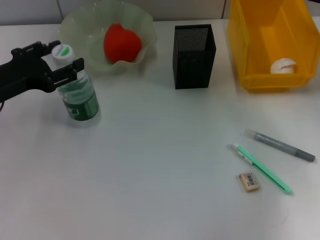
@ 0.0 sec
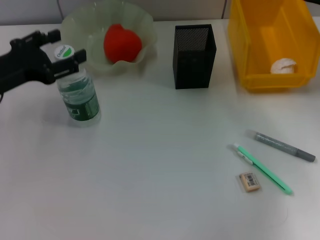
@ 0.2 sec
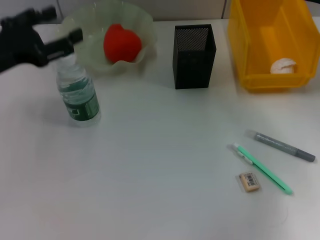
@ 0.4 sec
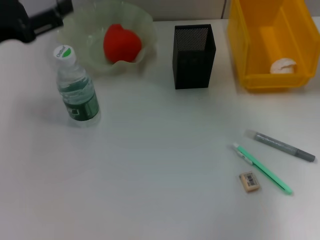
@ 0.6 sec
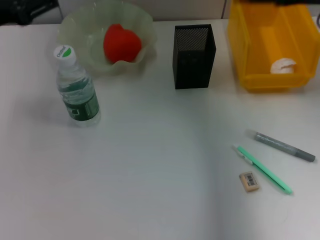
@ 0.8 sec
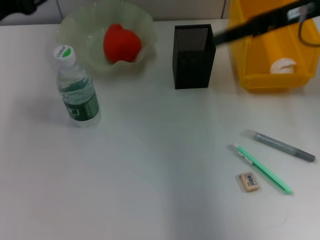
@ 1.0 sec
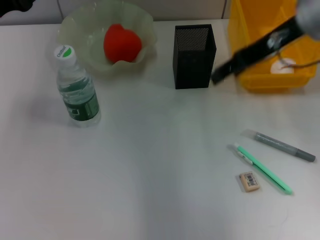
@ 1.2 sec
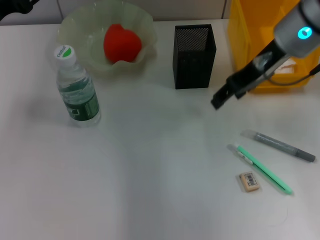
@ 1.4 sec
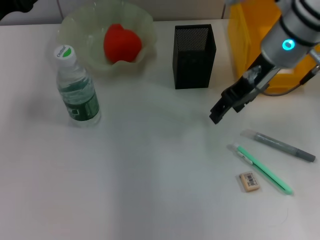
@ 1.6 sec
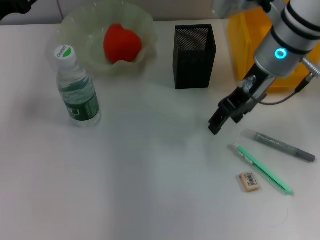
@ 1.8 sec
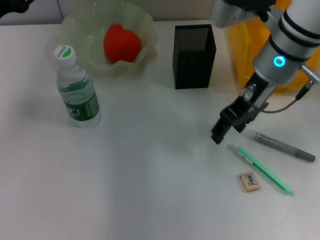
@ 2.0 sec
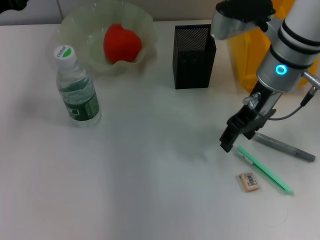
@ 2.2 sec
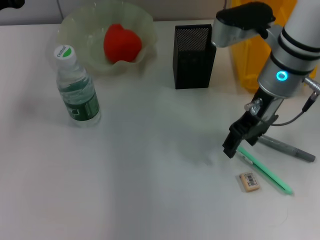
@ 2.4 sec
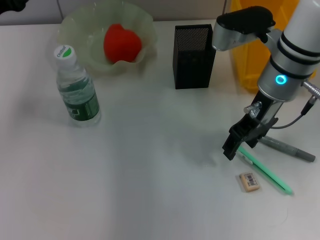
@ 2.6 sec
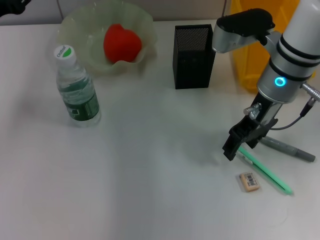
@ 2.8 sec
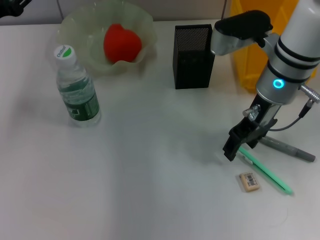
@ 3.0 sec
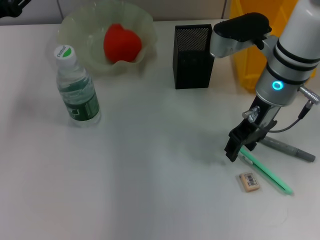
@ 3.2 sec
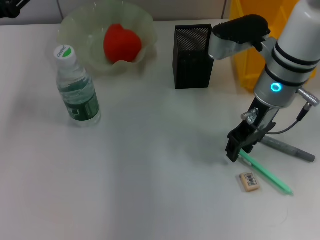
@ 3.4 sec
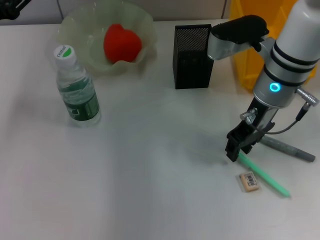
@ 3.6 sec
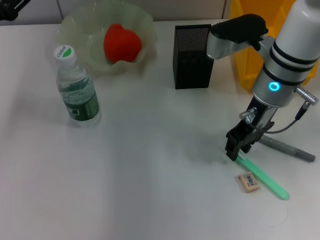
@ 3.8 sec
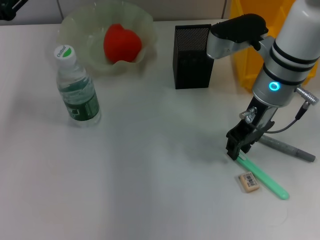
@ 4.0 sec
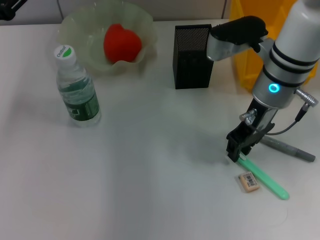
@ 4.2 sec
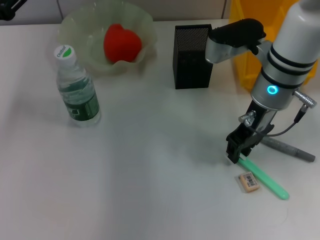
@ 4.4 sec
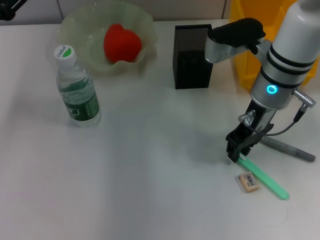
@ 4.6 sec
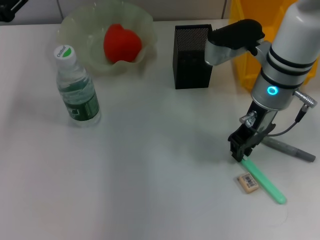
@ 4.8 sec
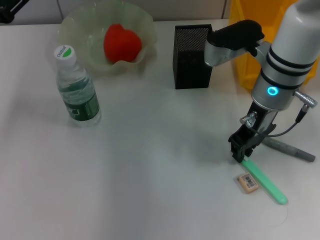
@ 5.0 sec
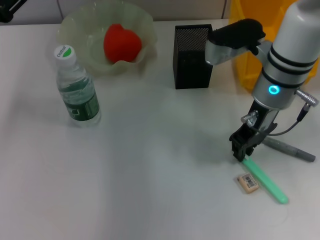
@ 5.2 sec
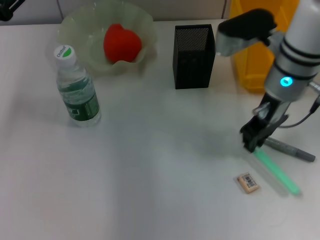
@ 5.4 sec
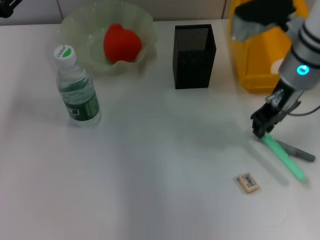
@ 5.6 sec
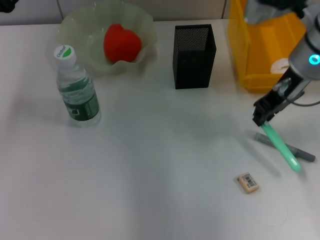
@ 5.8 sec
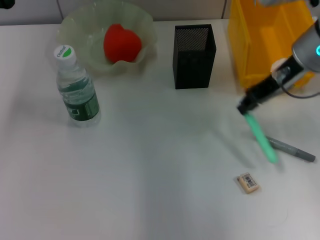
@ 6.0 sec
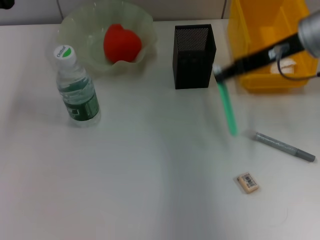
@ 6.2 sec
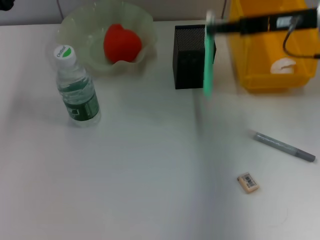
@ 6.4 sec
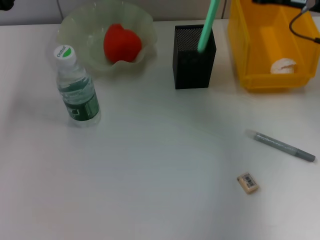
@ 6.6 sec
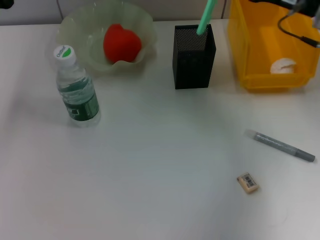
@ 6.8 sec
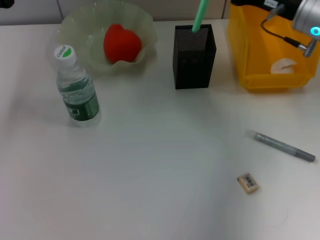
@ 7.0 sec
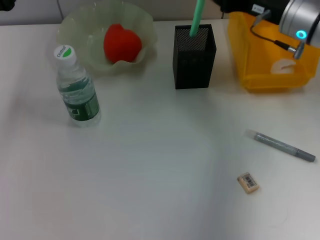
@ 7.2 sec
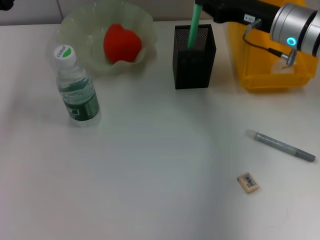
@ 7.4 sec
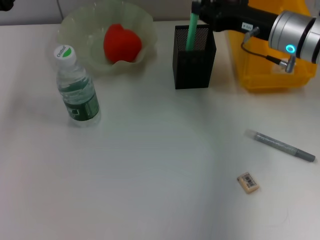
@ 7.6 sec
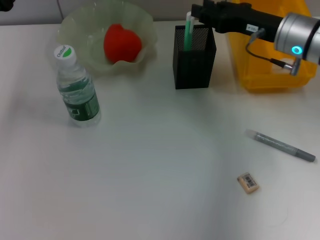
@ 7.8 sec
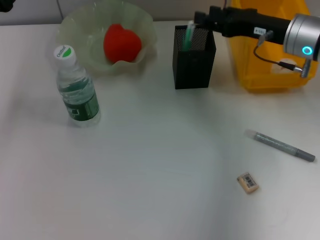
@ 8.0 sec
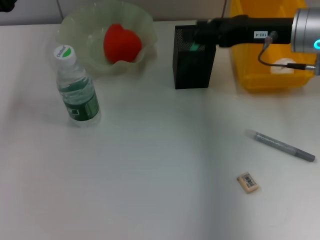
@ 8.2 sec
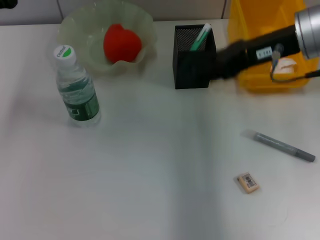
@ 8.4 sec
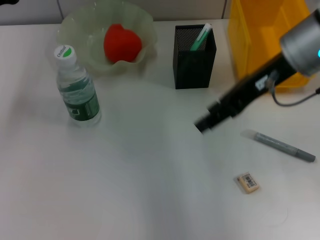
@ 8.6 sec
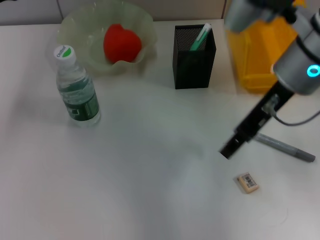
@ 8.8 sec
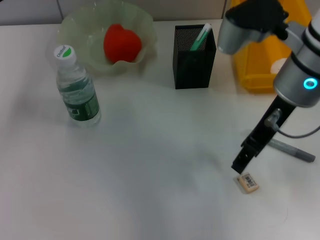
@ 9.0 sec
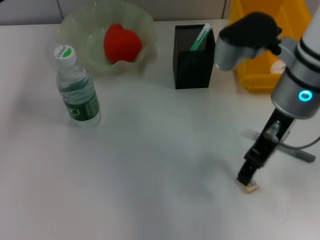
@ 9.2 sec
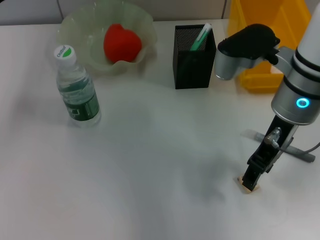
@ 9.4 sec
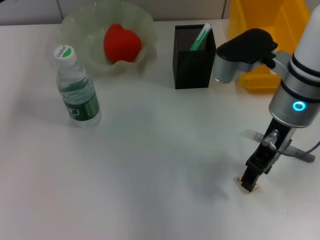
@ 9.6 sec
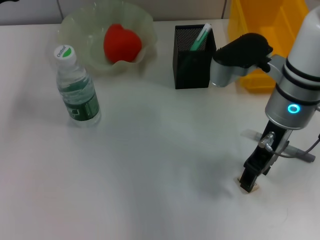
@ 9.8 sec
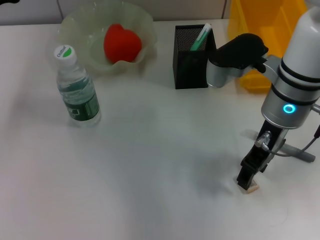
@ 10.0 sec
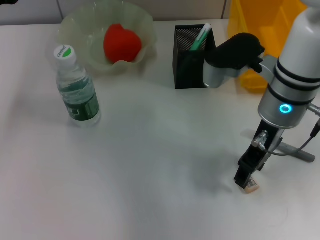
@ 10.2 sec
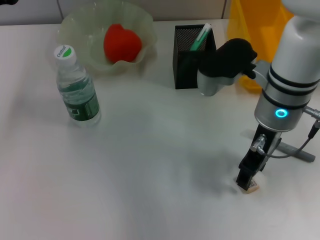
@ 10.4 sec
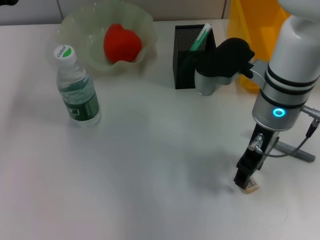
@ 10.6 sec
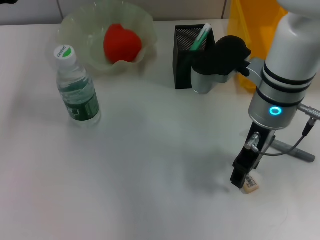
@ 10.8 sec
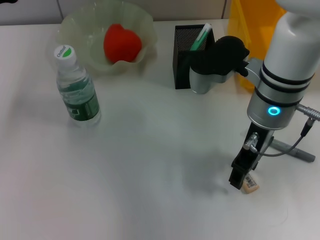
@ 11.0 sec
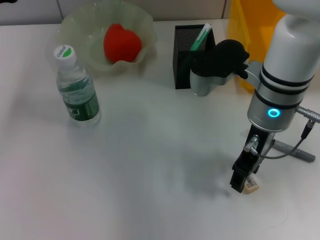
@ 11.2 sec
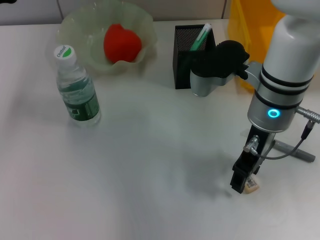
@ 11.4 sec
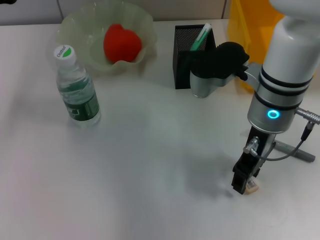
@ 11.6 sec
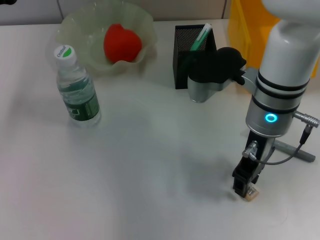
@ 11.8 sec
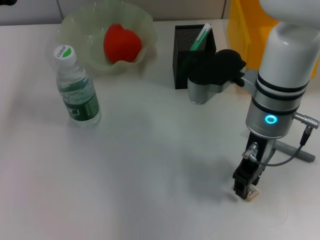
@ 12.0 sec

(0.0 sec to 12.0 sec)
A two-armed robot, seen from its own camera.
Step, 0.2 sec - 5.0 sec: Grab the blue utility knife with the right hand.
Step, 5.2 sec - 7.8 sec: Place the blue utility knife into the pen holder with the right hand.
0.0 sec - 1.6 sec: The left gripper opens up, while the right gripper is displaced to the left by some 15 cm.
1.6 sec - 3.0 sec: The grippers make only small movements.
3.0 sec - 4.4 sec: The right gripper closes.
4.4 sec - 6.0 sec: The right gripper goes approximately 10 cm to the right and upward.
6.0 sec - 7.6 sec: The right gripper shifts approximately 5 cm downward.
7.6 sec - 9.0 sec: The right gripper is displaced backward, upward and to the left by some 10 cm, and opens.
9.0 sec - 10.4 sec: The right gripper travels downward by approximately 5 cm.
10.4 sec - 12.0 sec: Both grippers stay about where they are.

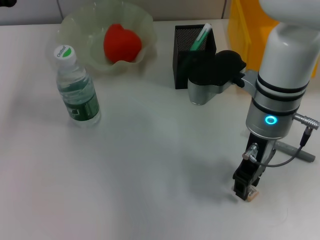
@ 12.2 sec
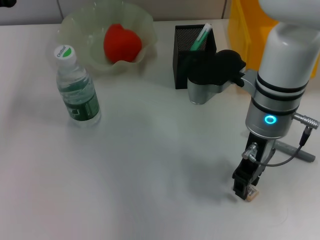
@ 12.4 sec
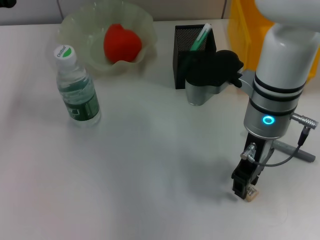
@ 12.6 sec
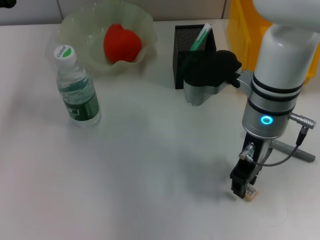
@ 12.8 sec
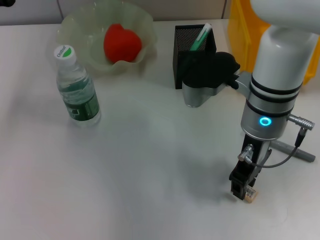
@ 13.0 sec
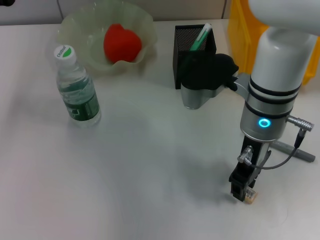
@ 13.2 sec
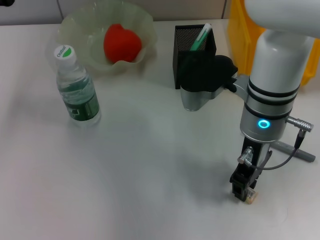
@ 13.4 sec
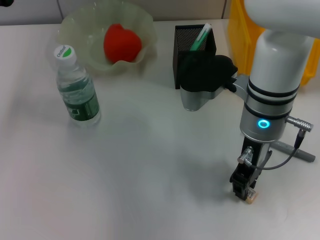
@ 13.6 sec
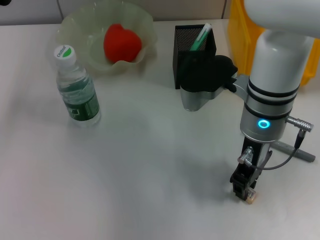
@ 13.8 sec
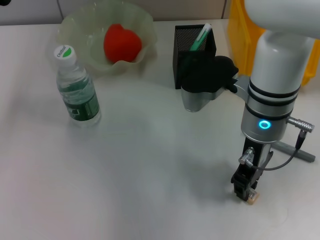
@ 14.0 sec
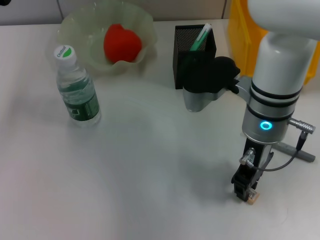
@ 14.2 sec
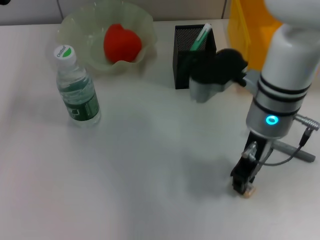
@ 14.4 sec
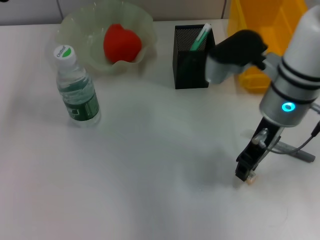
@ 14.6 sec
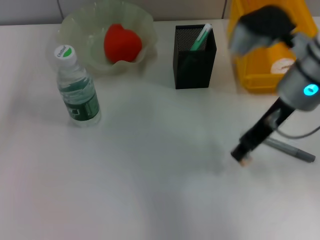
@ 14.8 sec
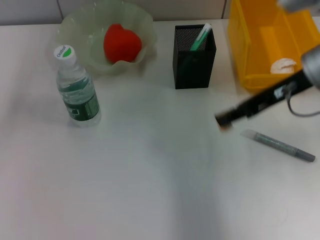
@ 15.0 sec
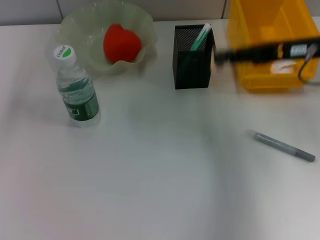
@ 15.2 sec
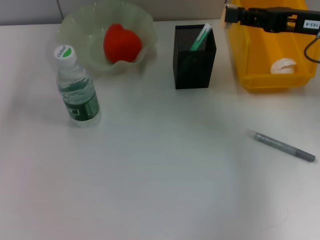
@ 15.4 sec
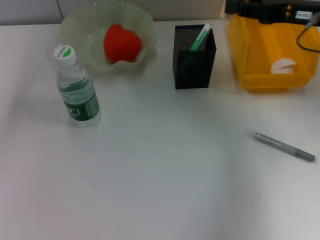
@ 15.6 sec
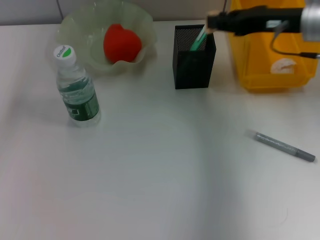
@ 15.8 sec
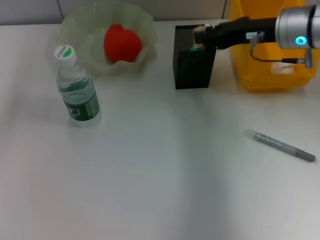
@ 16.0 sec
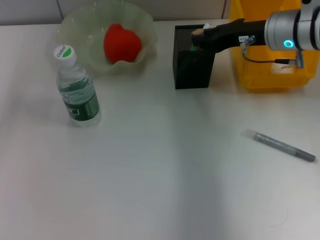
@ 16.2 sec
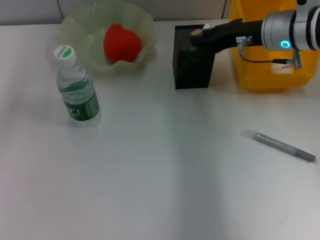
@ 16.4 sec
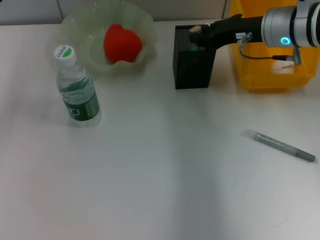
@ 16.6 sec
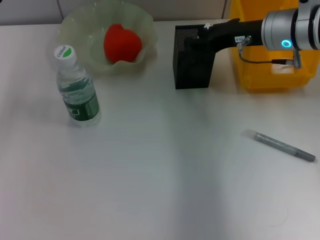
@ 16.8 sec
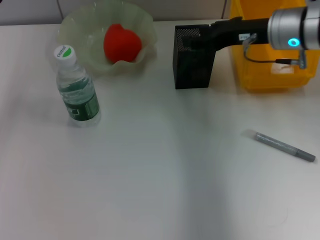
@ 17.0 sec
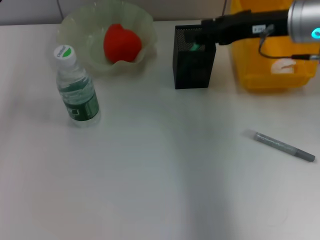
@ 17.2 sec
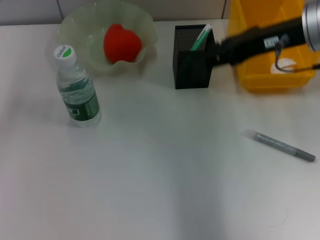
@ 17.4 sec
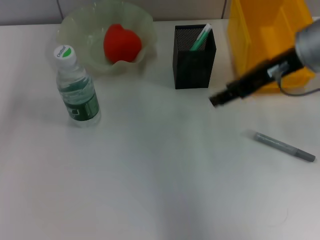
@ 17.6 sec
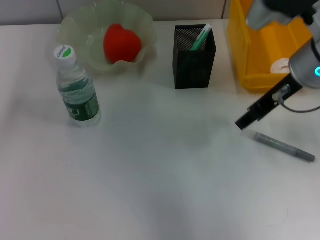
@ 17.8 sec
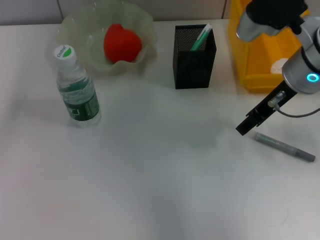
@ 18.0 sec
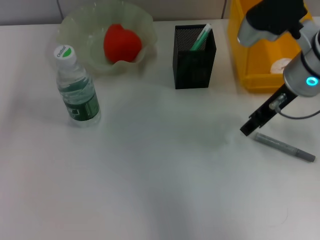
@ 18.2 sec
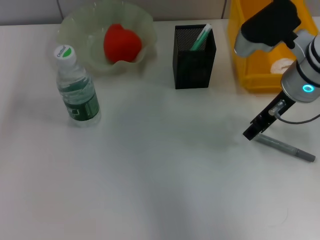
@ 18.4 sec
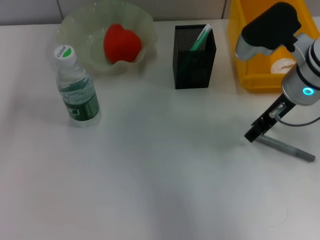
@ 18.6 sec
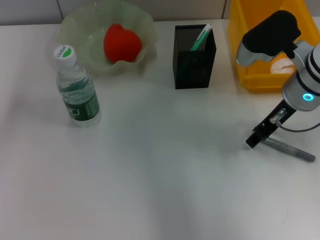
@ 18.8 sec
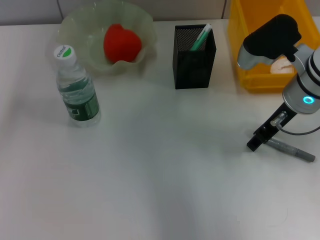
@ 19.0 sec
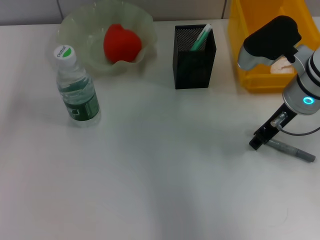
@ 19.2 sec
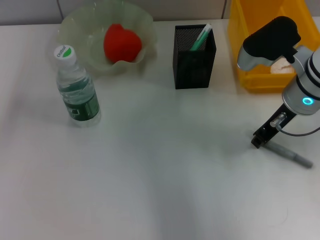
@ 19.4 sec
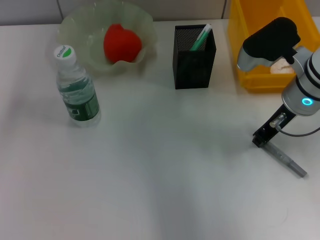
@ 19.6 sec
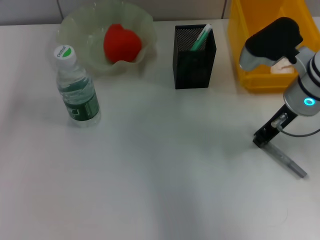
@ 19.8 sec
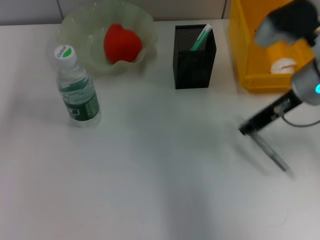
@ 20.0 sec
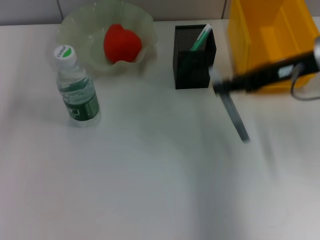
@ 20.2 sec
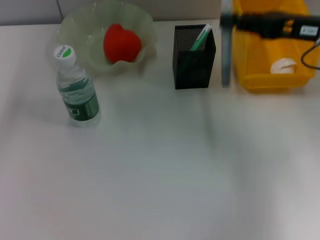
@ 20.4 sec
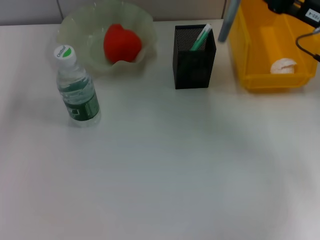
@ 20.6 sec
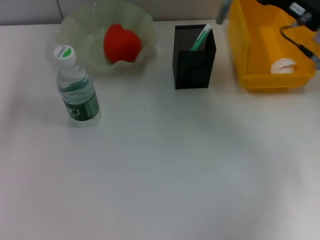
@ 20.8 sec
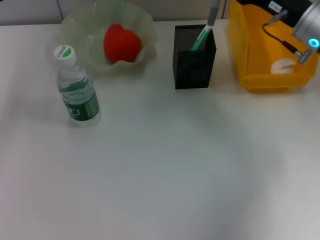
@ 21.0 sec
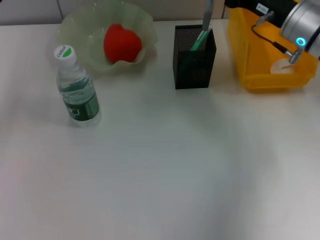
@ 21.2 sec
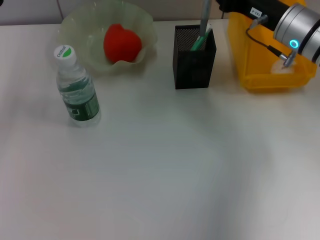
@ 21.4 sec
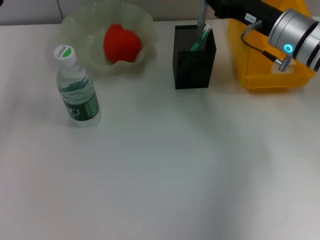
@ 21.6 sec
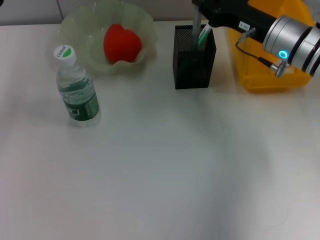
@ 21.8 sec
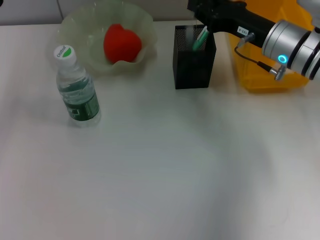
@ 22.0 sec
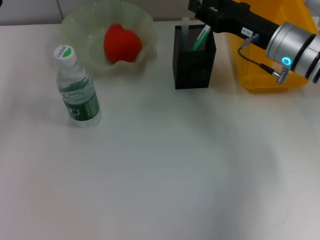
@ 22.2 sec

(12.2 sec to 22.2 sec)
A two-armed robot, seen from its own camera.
Step, 14.2 sec - 17.2 sec: Put the eraser into the pen holder with the right hand.
Step, 17.4 sec - 19.8 sec: Grab the gray glue with the right hand.
Step, 20.0 sec - 22.2 sec: Place the gray glue into the pen holder with the right hand.
12.2 sec - 13.6 sec: Both grippers stay about where they are.
13.6 sec - 15.0 sec: The right gripper shifts roughly 10 cm to the right and upward.
15.0 sec - 16.4 sec: The right gripper goes about 5 cm forward, and moves some 5 cm to the right and comes back.
16.4 sec - 18.0 sec: The right gripper travels backward by some 5 cm, and opens.
18.0 sec - 19.4 sec: The right gripper ends up about 5 cm from where it was.
19.4 sec - 20.8 sec: The right gripper heads to the right, covering approximately 5 cm, and closes.
20.8 sec - 22.2 sec: The right gripper changes place by approximately 5 cm.
